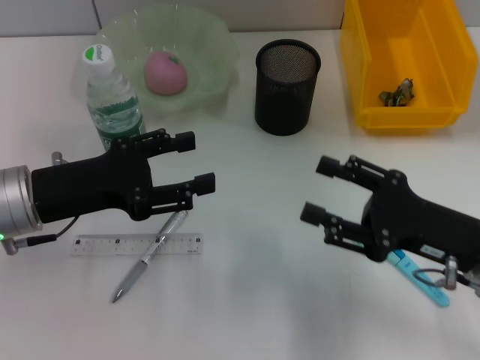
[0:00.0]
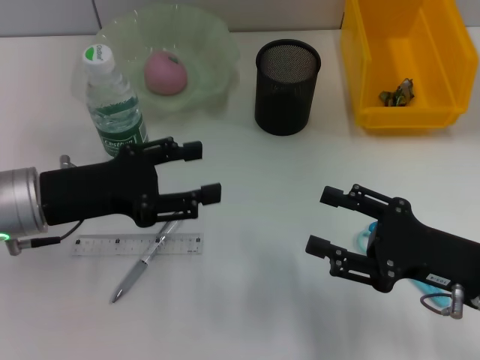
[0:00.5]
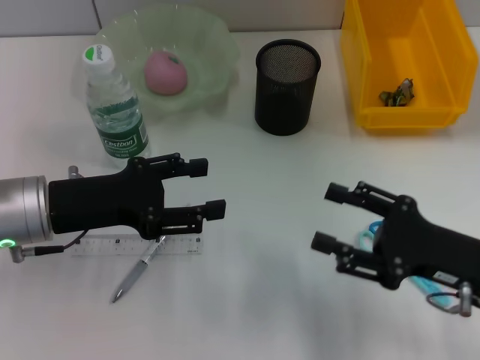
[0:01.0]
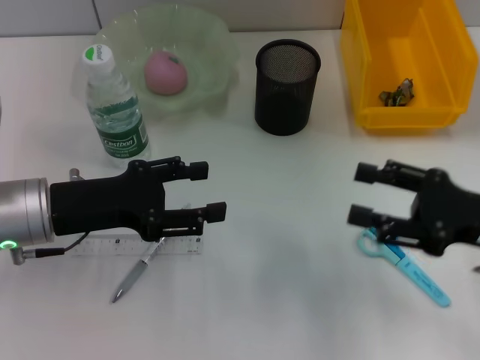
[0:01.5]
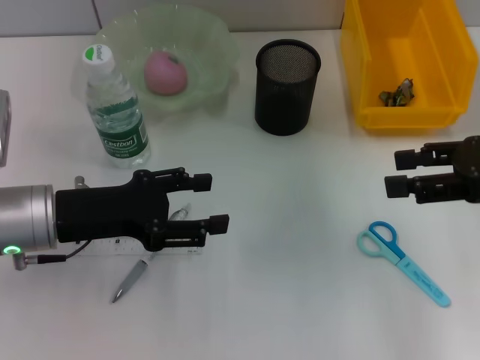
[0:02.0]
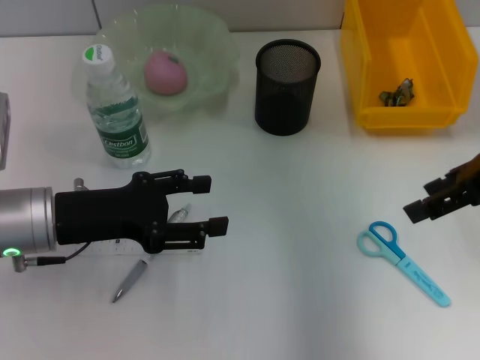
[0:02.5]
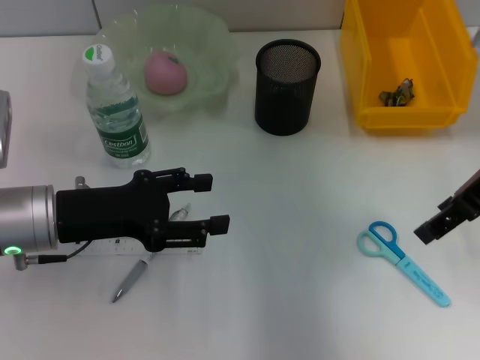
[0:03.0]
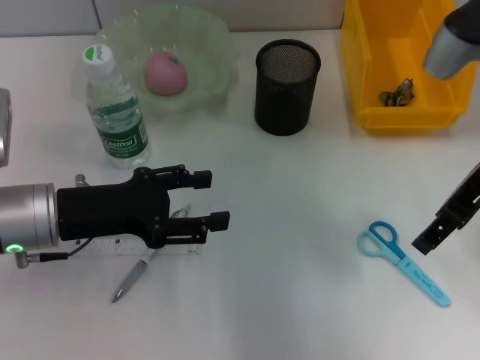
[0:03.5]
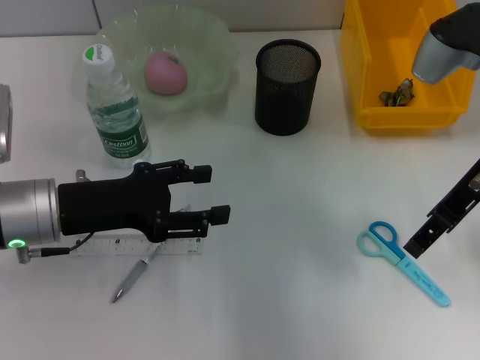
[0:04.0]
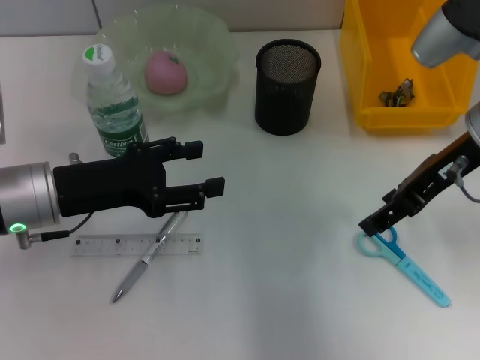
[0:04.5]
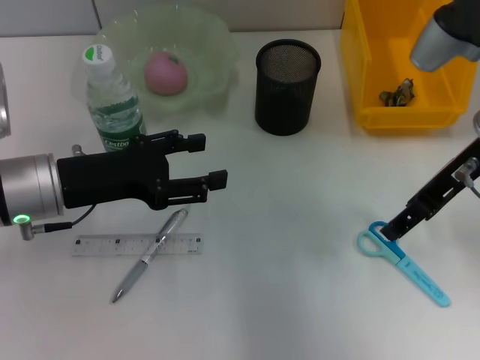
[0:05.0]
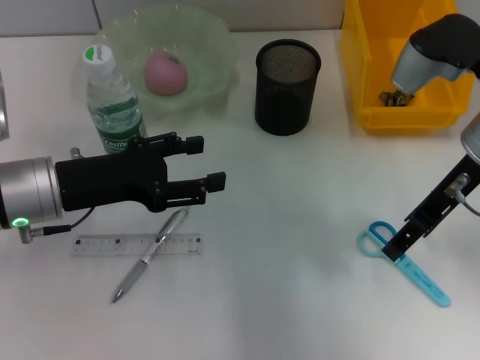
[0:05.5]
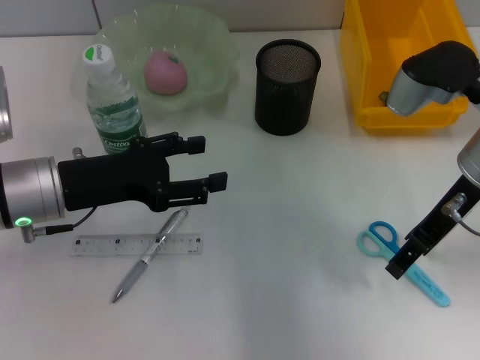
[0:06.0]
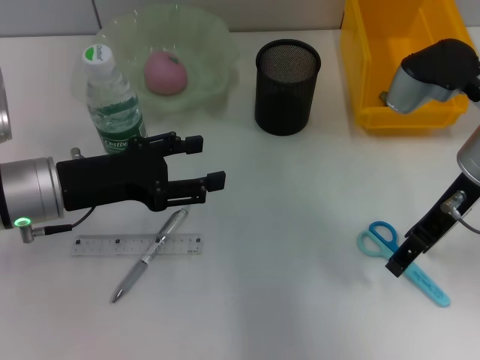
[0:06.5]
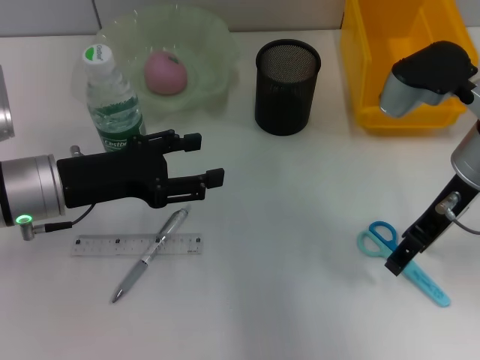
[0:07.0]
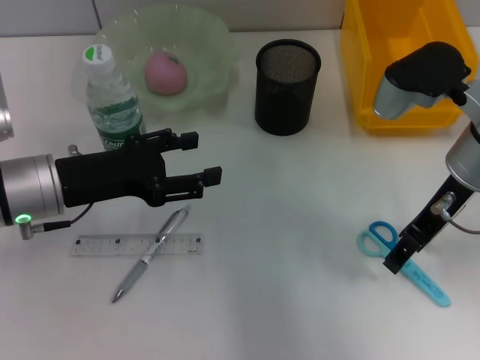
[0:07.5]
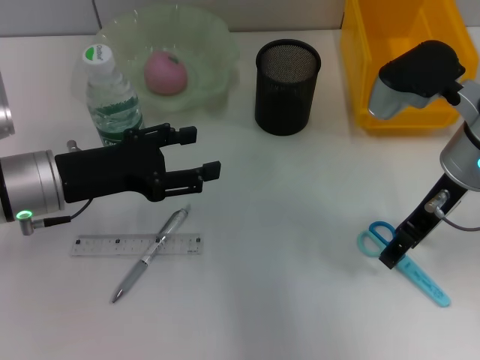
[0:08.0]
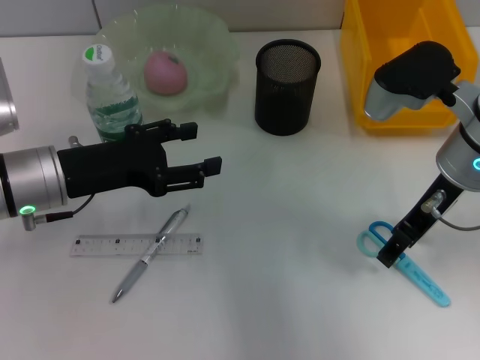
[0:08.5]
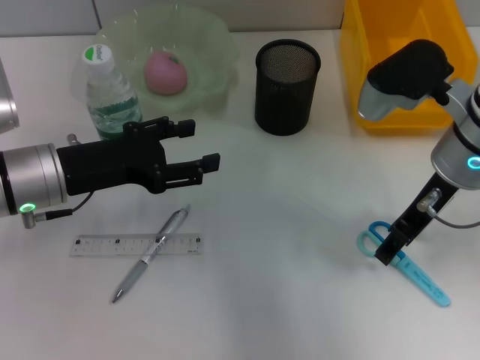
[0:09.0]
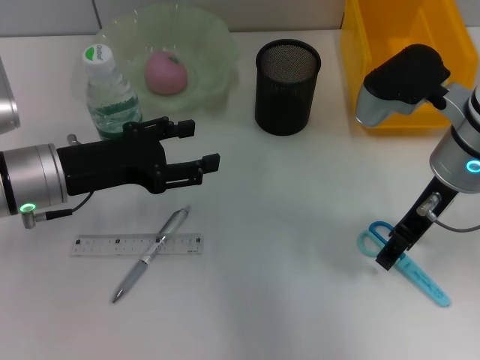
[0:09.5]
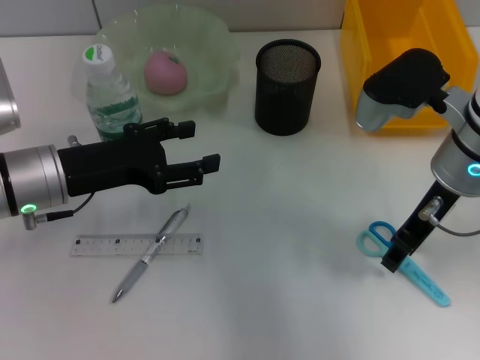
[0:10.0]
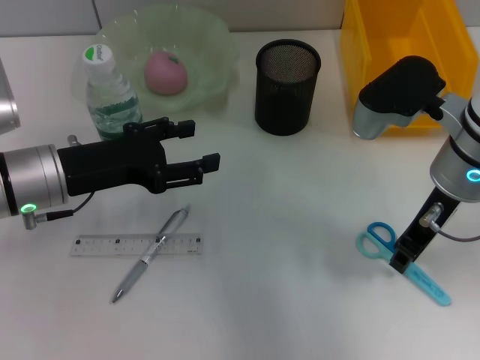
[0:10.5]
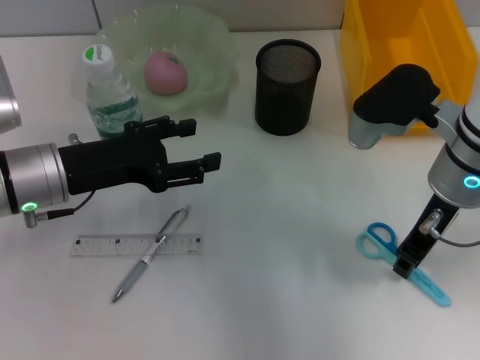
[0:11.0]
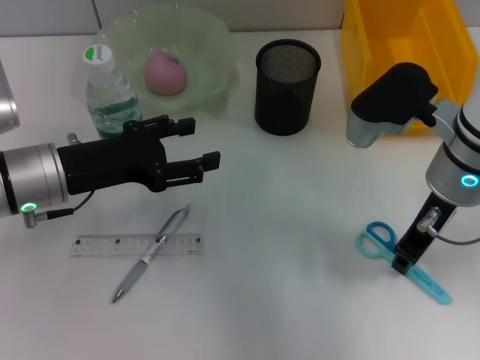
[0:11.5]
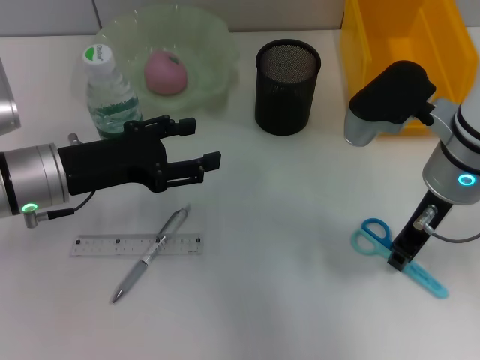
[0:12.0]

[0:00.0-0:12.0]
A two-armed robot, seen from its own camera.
0:00.0 to 0:02.0: The right gripper shifts about 15 cm upward, to the right and forward.
0:02.0 to 0:04.0: The right gripper heads to the left and forward, covering roughly 10 cm.
0:04.0 to 0:08.0: The grippers stay close to where they were, moving slightly.
0:08.0 to 0:10.0: Both grippers stay put.
0:10.0 to 0:12.0: The right gripper closes.

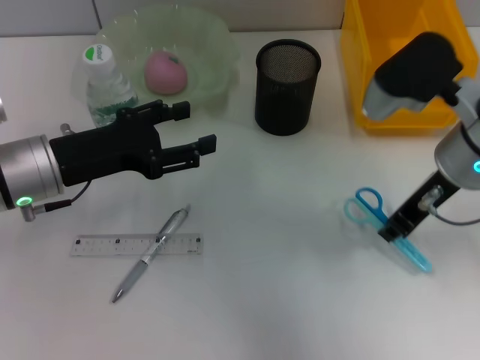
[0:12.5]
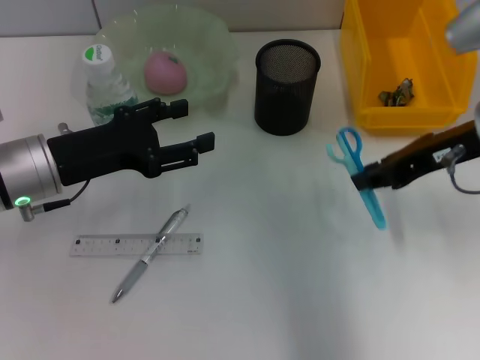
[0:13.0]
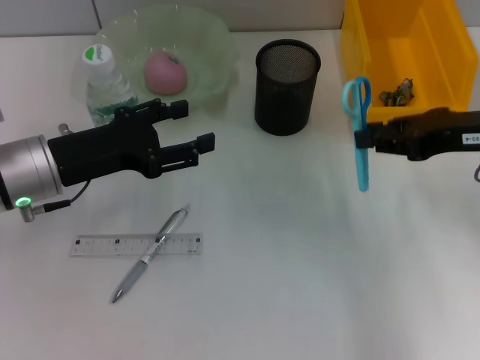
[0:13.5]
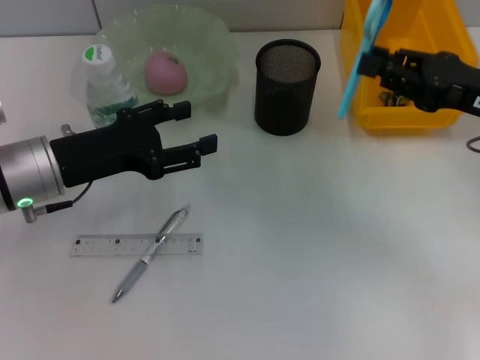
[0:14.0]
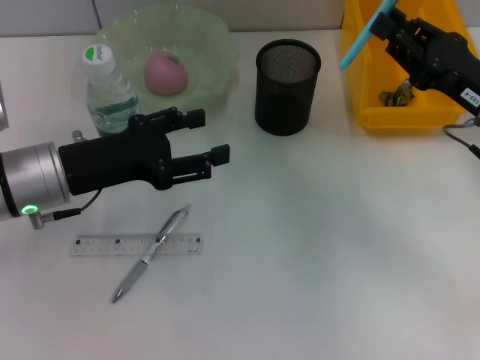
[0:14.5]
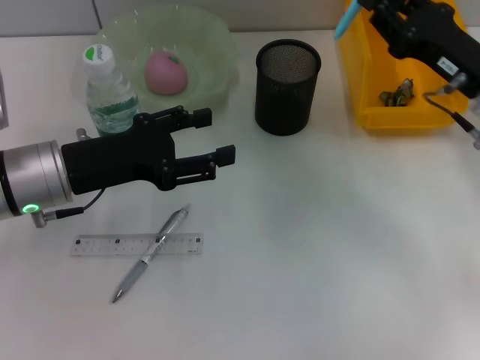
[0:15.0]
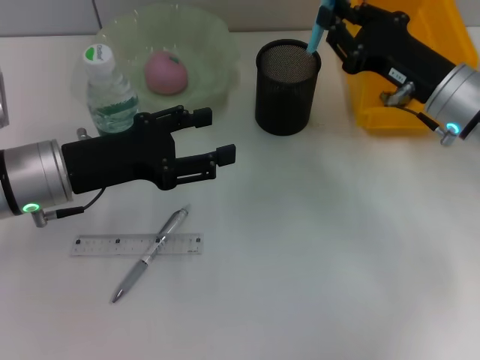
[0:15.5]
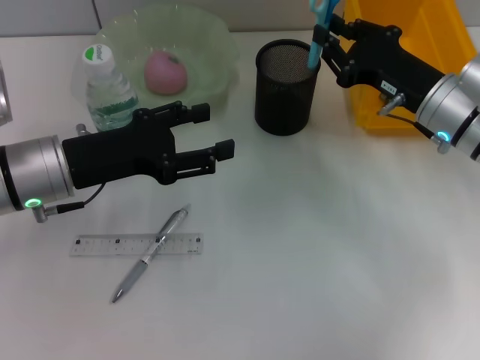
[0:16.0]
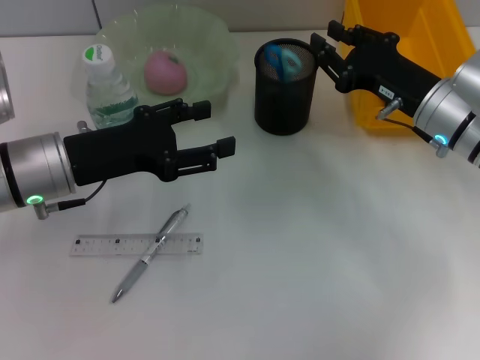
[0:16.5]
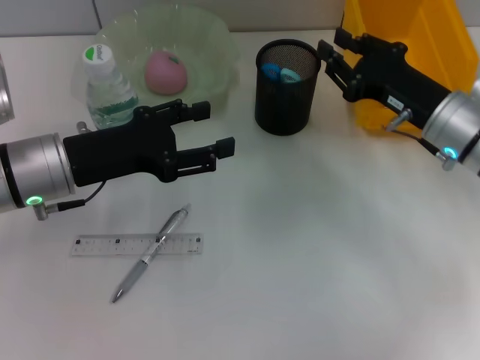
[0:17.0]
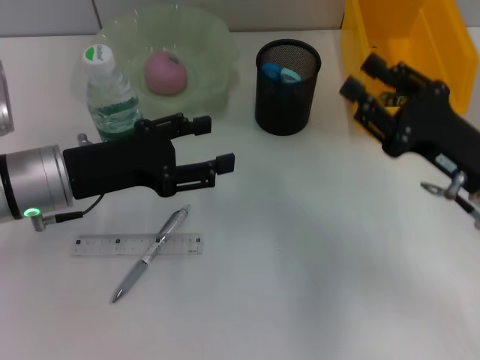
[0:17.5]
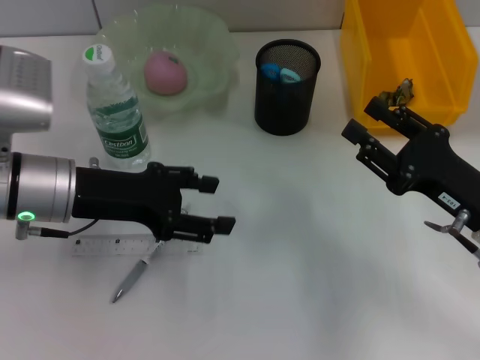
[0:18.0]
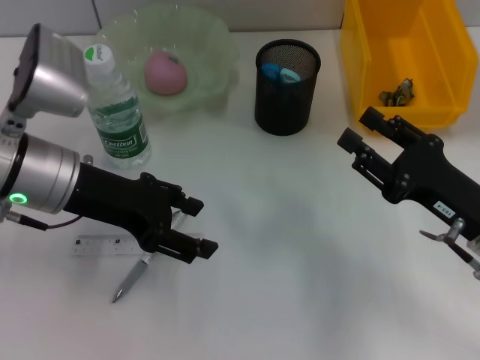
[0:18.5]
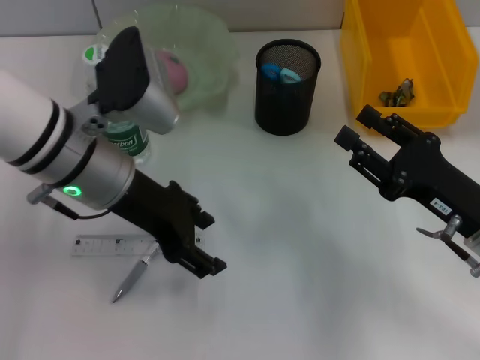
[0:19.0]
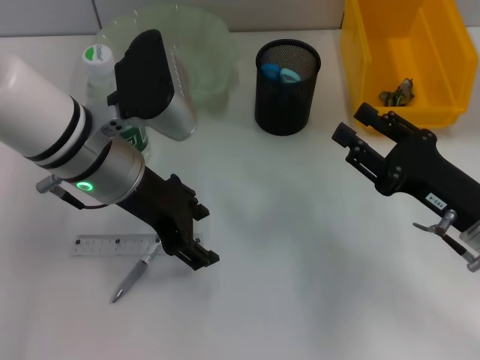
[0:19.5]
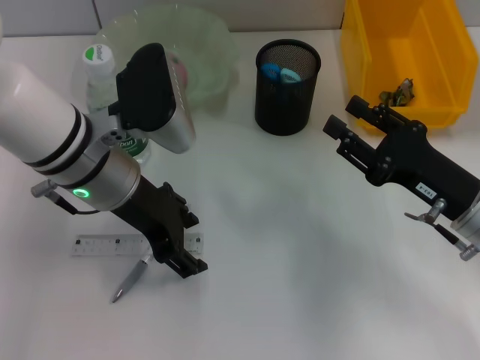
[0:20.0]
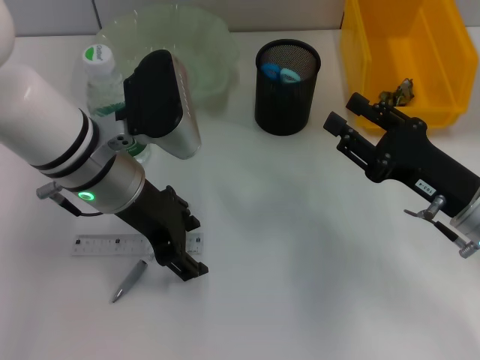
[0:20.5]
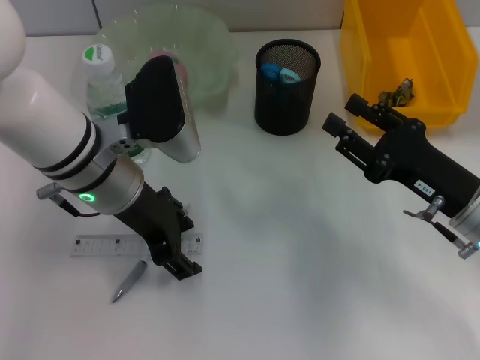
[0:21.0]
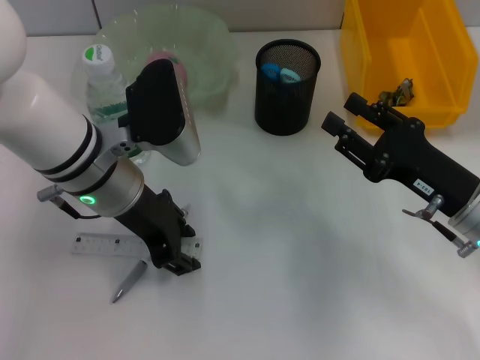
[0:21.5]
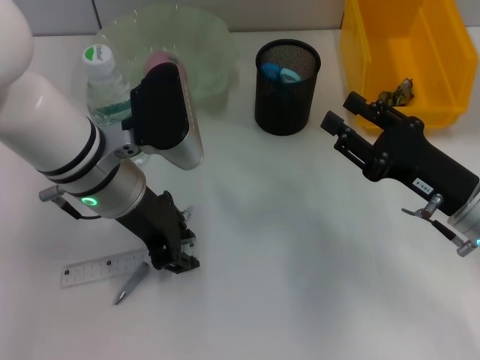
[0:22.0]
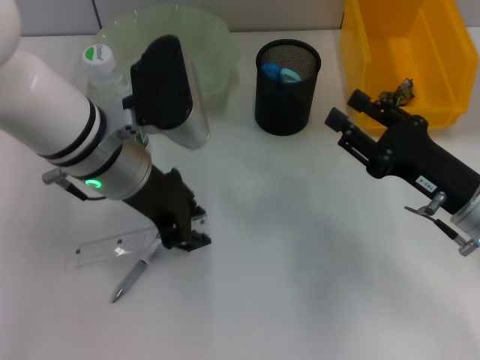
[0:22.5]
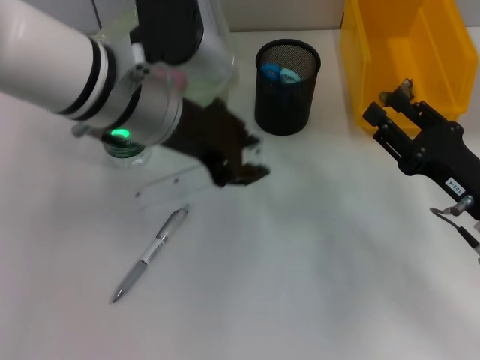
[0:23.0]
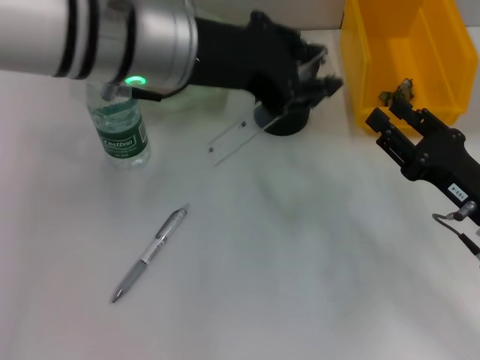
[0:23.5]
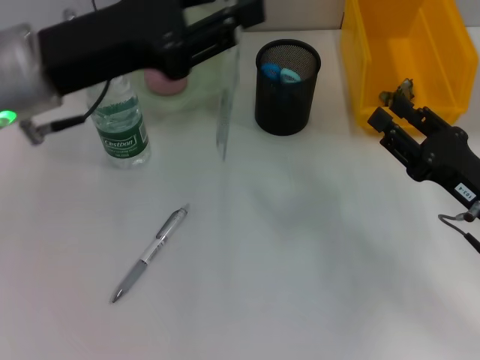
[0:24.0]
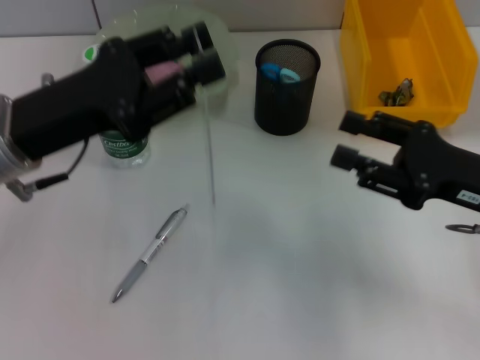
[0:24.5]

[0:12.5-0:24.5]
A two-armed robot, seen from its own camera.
Step, 0:12.5 to 0:16.5: Place the blue scissors into the pen holder with the right hand.
Step, 0:17.0 to 0:22.5: Grab the ruler with the left hand.
0:12.5 to 0:14.5: The right gripper goes some 10 cm to the right and downward.
0:14.5 to 0:16.5: The right gripper shifts by approximately 10 cm.
0:16.5 to 0:18.5: The right gripper moves backward, roughly 10 cm, and opens its fingers.
0:18.5 to 0:20.5: The left gripper heads to the right, covering about 5 cm.
0:20.5 to 0:22.5: The left gripper closes its fingers.
0:22.5 to 0:24.5: The right gripper ends up approximately 5 cm from where it was, while the left gripper is displaced to the left by approximately 10 cm.

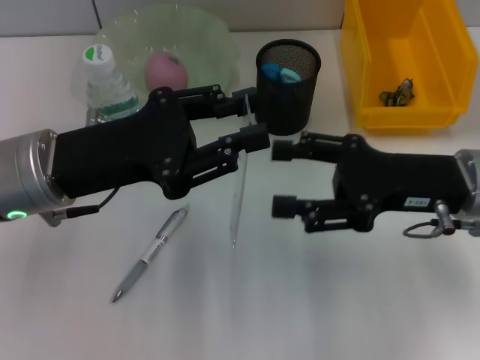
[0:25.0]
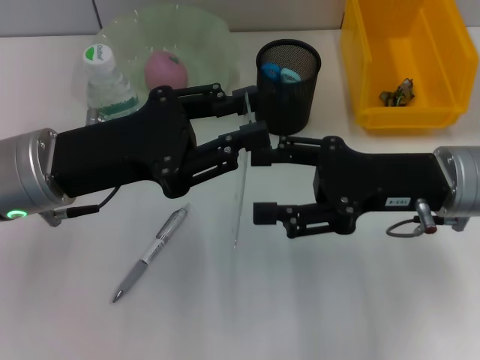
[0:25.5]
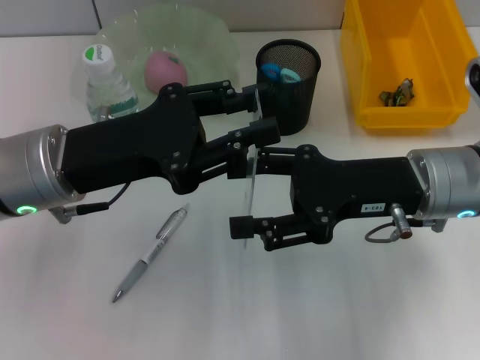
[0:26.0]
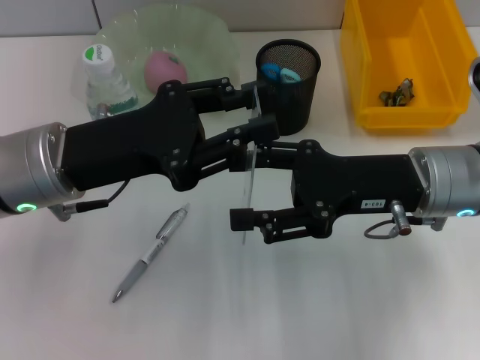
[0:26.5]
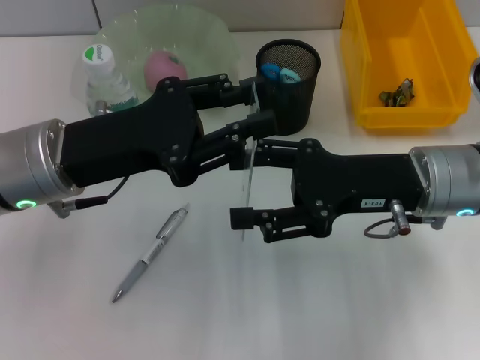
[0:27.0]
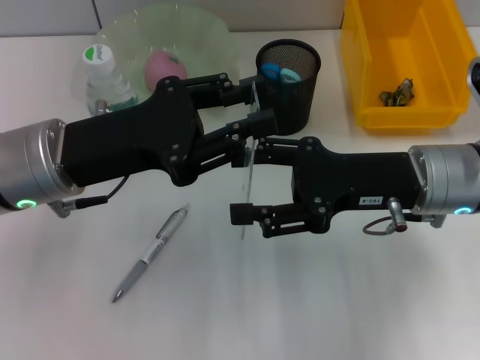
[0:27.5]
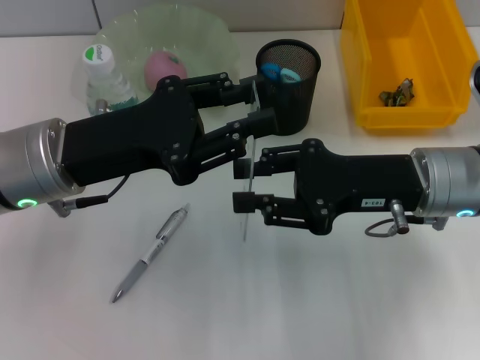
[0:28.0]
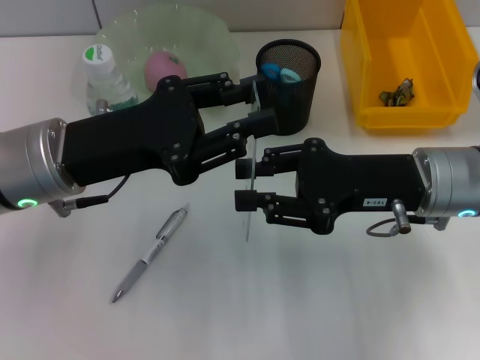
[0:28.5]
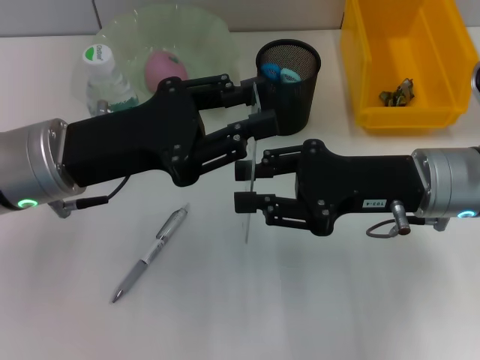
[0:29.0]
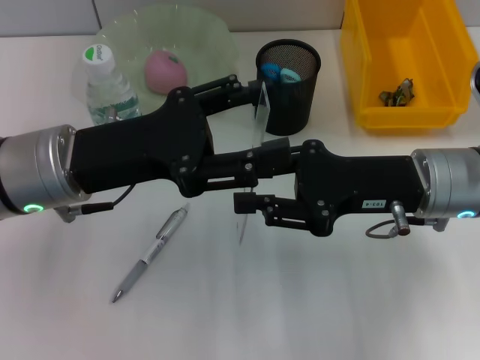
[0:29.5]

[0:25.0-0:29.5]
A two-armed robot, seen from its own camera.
0:25.0 to 0:27.0: The grippers move only a little.
0:27.0 to 0:29.5: The right gripper closes.
